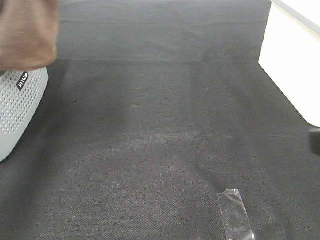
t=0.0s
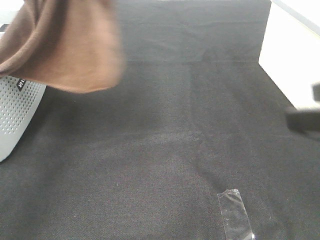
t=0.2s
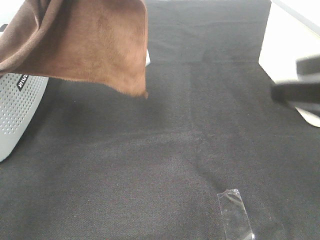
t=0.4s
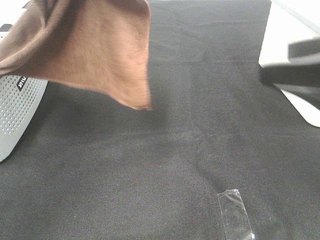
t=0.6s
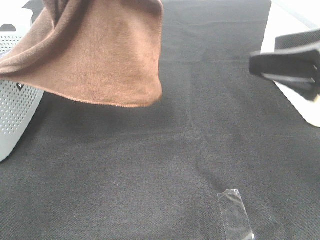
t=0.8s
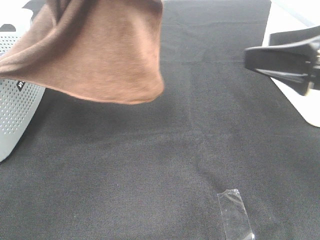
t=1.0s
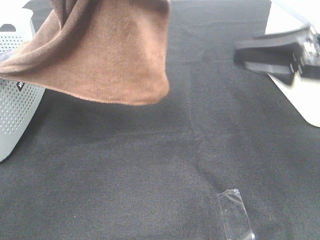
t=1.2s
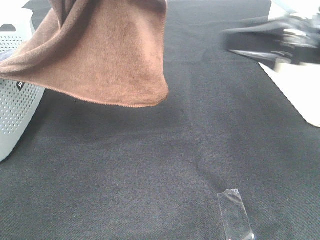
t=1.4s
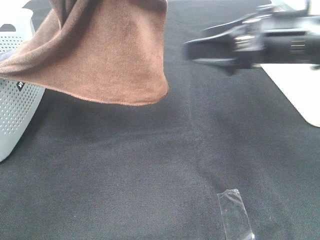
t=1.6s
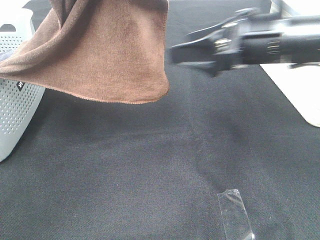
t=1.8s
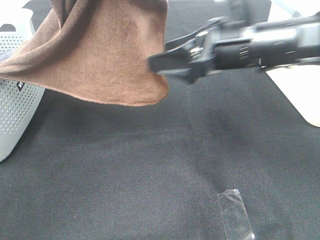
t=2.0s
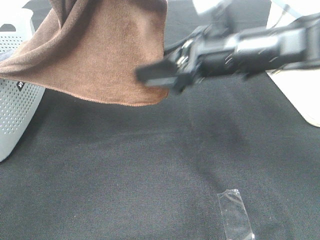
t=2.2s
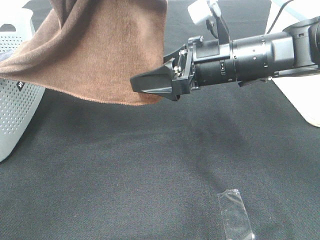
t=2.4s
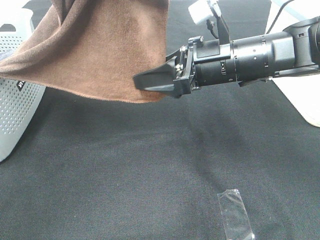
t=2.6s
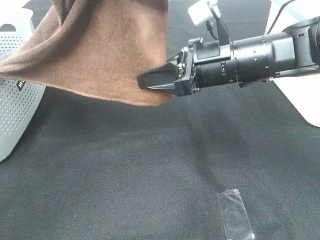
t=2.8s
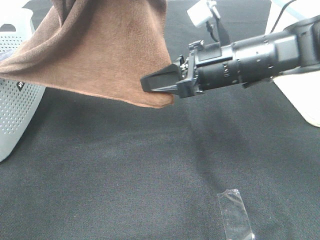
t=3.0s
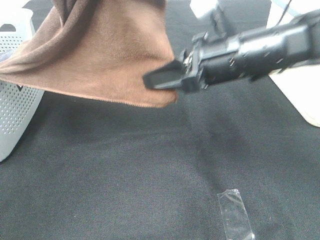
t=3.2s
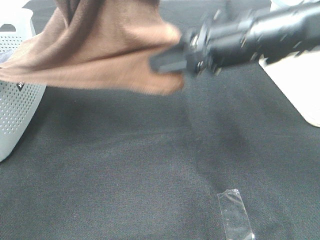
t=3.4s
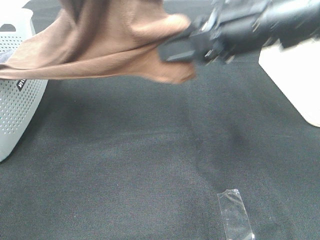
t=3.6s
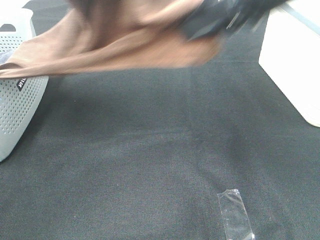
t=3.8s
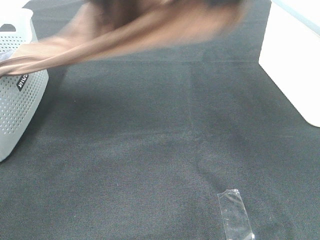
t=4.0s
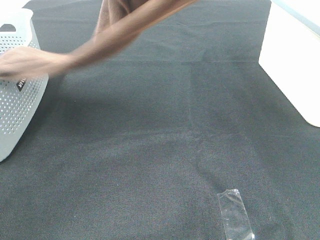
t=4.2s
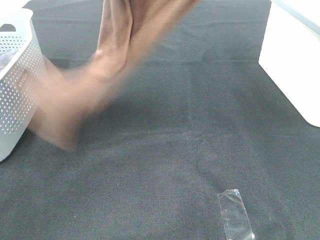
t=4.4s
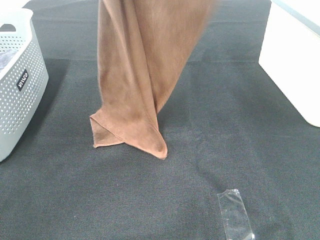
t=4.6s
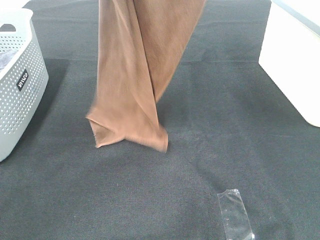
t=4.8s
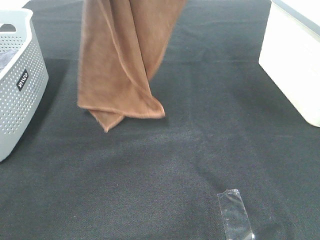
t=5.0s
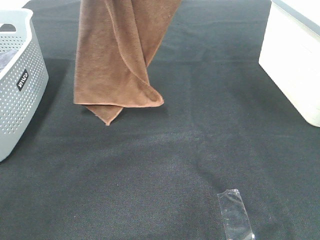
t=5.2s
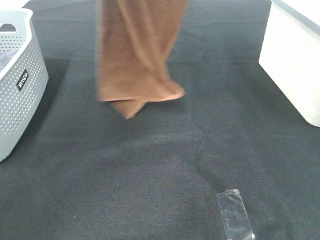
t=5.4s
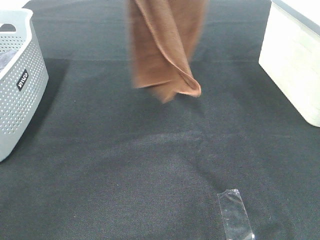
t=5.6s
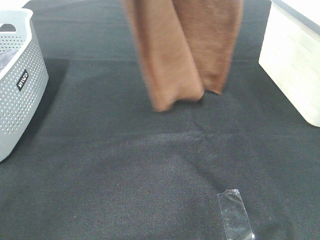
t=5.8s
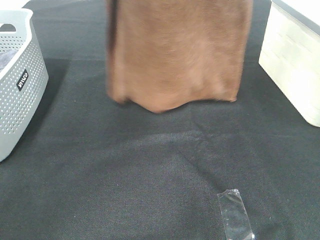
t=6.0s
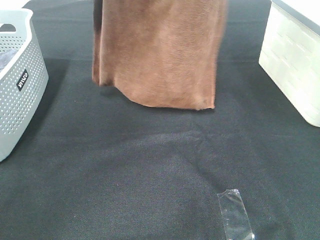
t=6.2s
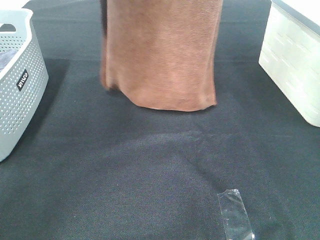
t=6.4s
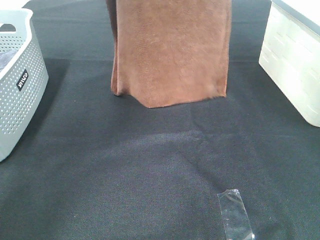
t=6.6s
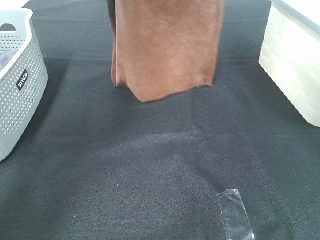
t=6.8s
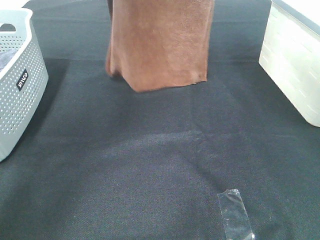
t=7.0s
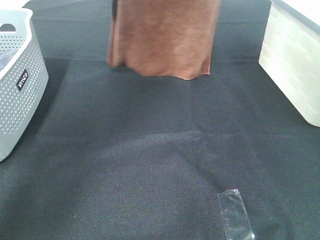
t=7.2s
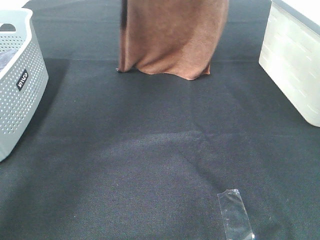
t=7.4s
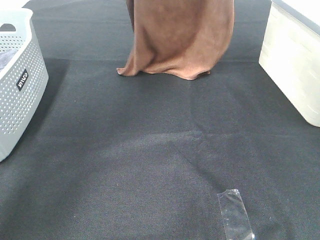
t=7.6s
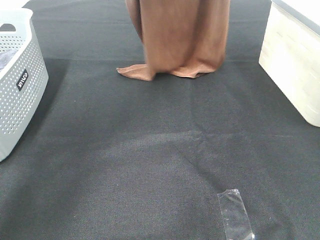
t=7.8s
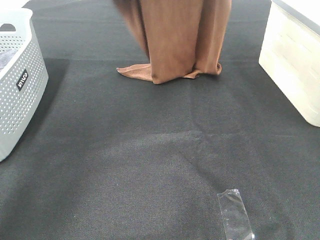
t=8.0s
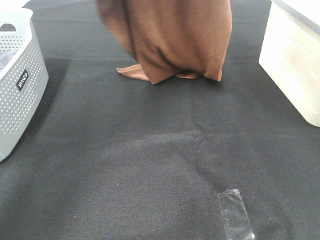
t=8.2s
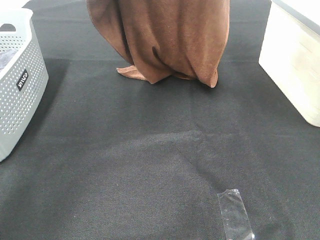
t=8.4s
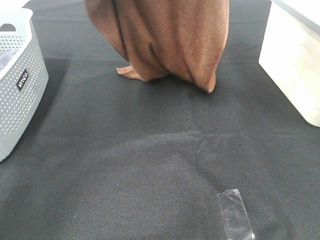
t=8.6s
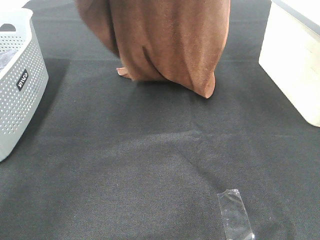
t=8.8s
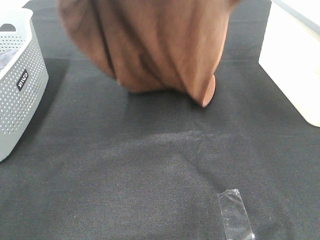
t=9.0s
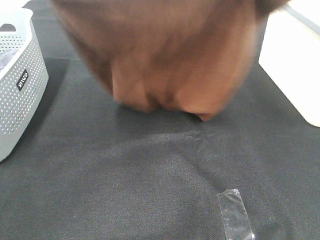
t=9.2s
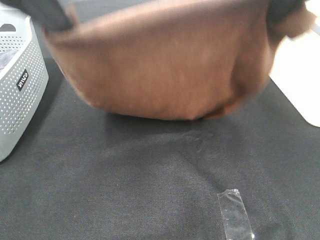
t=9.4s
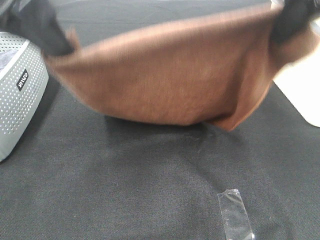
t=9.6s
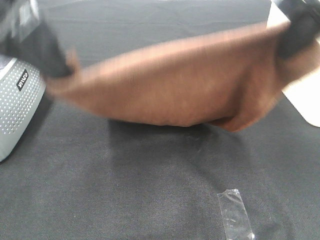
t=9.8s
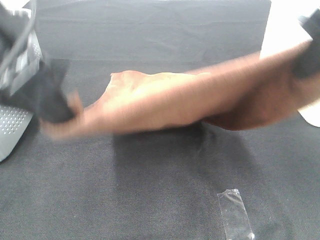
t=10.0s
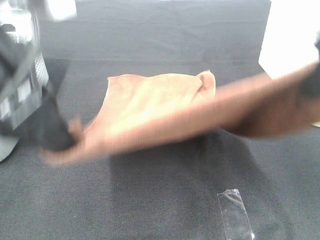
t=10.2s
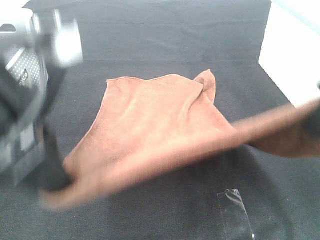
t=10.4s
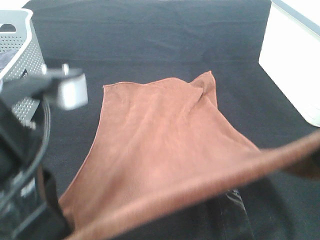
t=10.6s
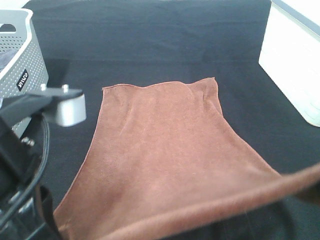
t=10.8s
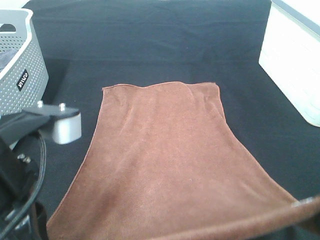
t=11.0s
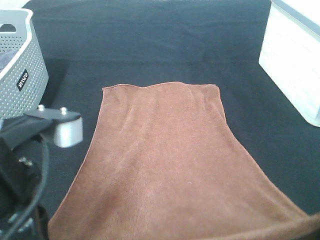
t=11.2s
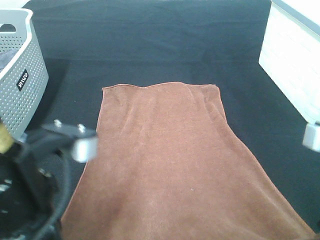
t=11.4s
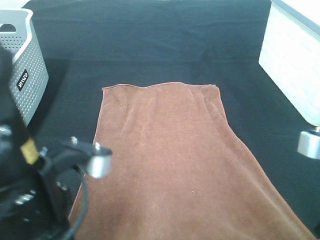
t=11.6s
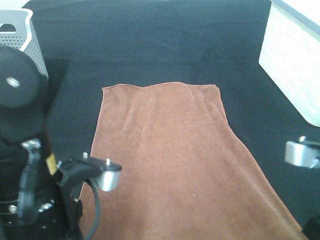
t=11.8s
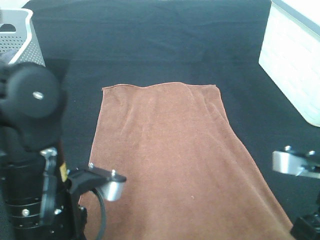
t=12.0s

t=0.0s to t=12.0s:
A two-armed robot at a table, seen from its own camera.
Task of the whole recording: Remove the towel and place it.
Step, t=0.0s to t=2.4s: Right hand: grab a corner of the brown towel and straighten it.
Step, t=2.6s to t=9.6s: Left hand: spread the brown towel flat on the table.
Step, t=2.6s to t=9.6s: Right hand: spread the brown towel flat on the table.
t=0.0s to t=1.6s: The left gripper is displaced to the right by approximately 10 cm; the right gripper travels forward by some 20 cm.
t=1.6s to t=3.0s: The right gripper goes about 5 cm to the left, and closes up.
t=3.0s to t=4.4s: The right gripper goes about 25 cm upward.
t=4.4s to t=6.0s: The left gripper goes some 5 cm forward. Meanwhile the right gripper goes some 10 cm upward and forward.
t=6.0s to t=7.6s: The grippers both shift forward and downward by about 10 cm.
t=7.6s to t=9.0s: The right gripper goes some 15 cm backward and downward. Meanwhile the left gripper is displaced backward by some 15 cm.
t=9.0s to t=10.4s: The grippers both shift backward and downward by about 20 cm.
t=10.4s to t=12.0s: Both grippers move downward, approximately 15 cm.

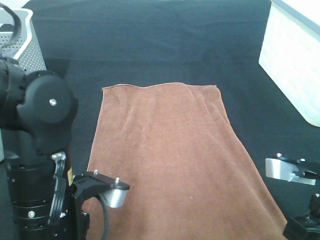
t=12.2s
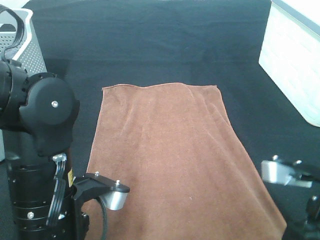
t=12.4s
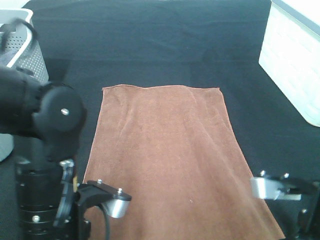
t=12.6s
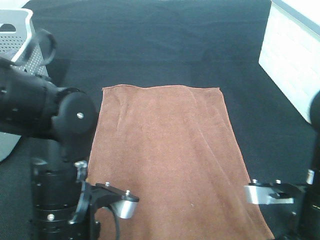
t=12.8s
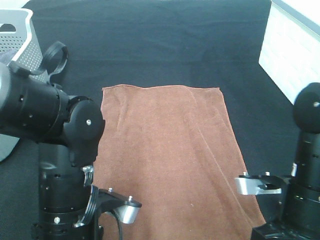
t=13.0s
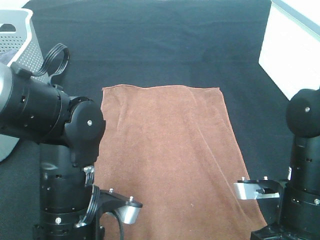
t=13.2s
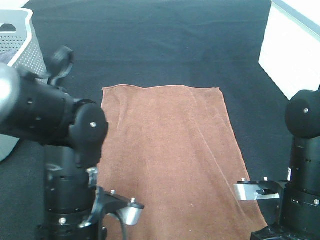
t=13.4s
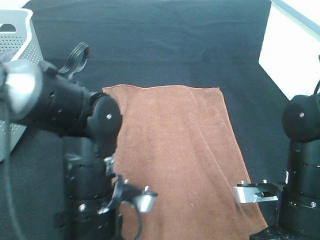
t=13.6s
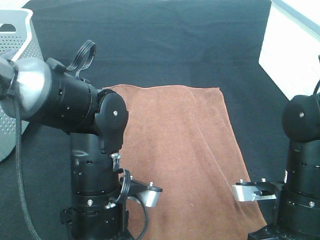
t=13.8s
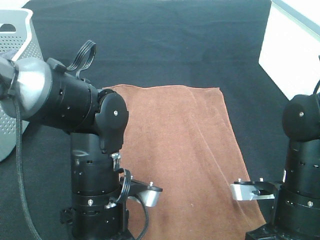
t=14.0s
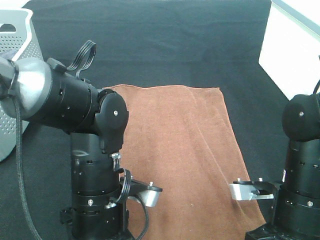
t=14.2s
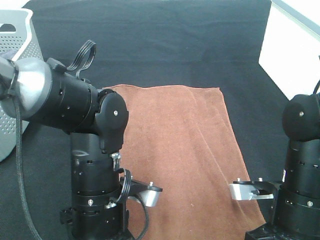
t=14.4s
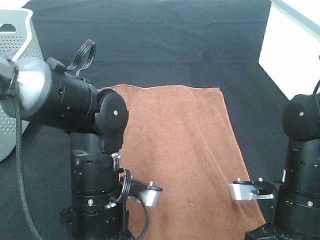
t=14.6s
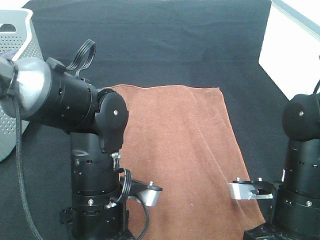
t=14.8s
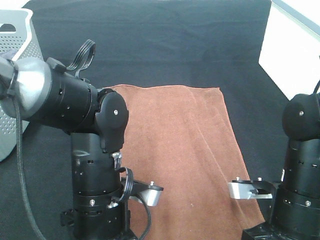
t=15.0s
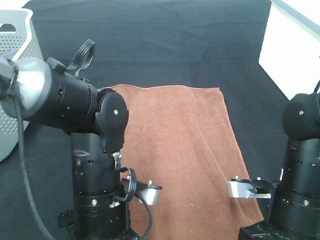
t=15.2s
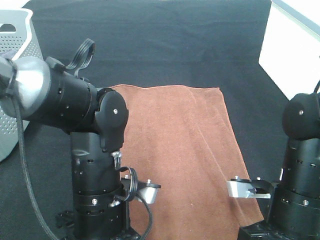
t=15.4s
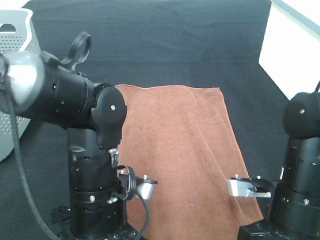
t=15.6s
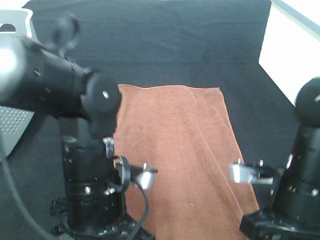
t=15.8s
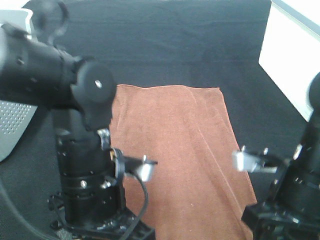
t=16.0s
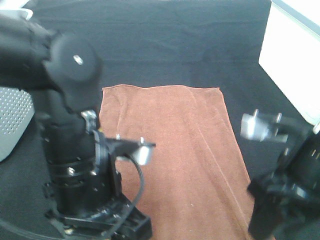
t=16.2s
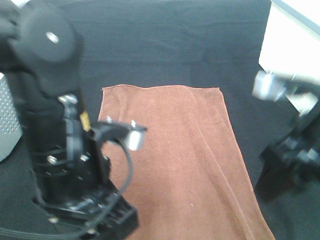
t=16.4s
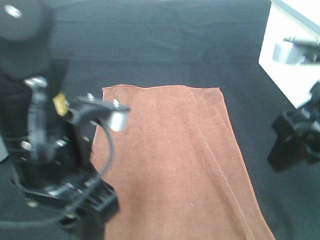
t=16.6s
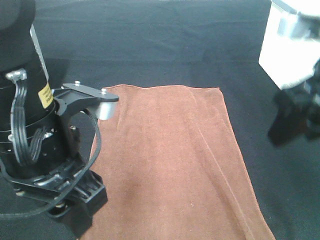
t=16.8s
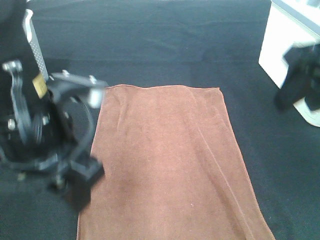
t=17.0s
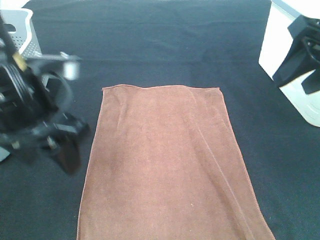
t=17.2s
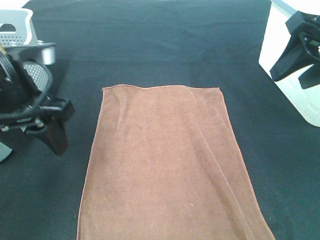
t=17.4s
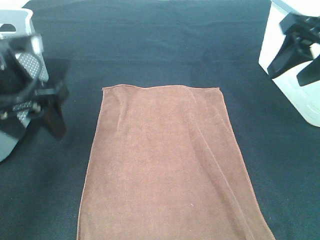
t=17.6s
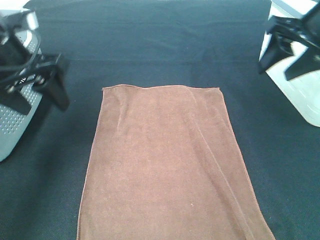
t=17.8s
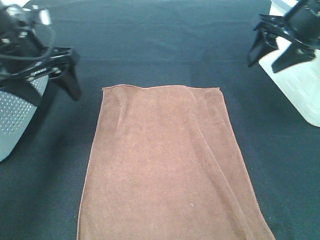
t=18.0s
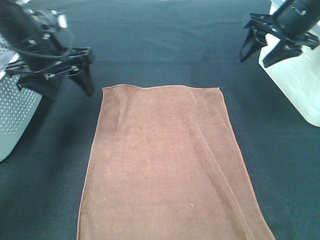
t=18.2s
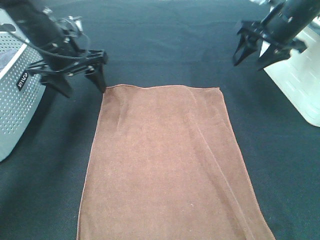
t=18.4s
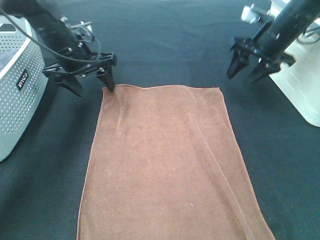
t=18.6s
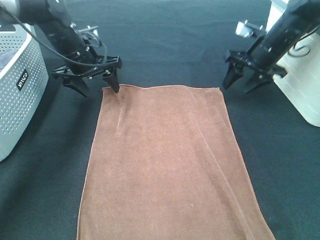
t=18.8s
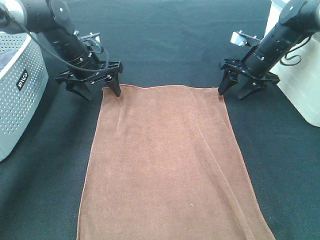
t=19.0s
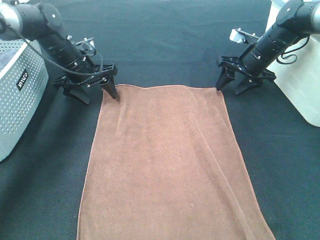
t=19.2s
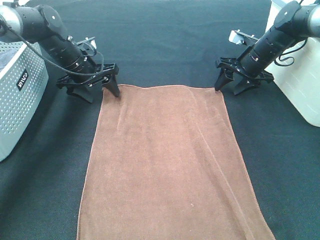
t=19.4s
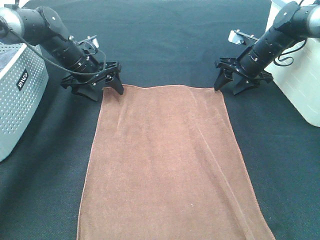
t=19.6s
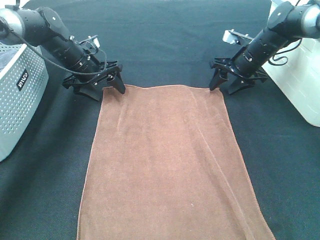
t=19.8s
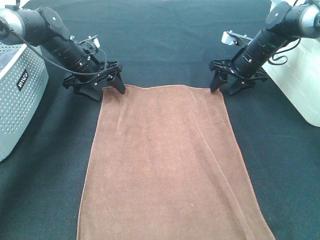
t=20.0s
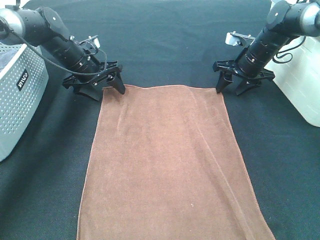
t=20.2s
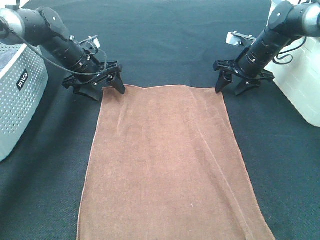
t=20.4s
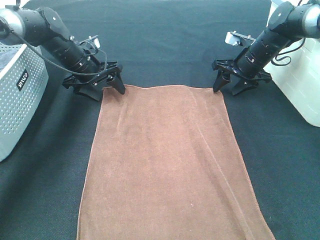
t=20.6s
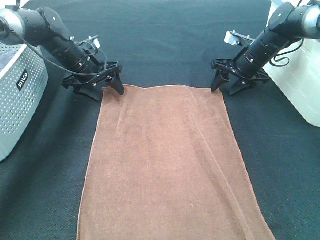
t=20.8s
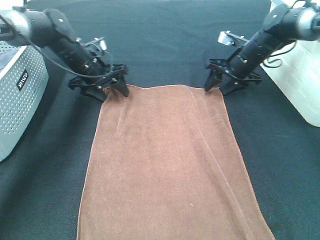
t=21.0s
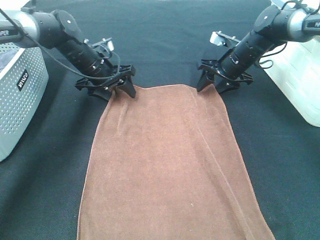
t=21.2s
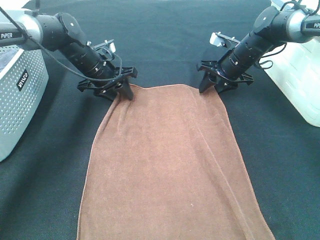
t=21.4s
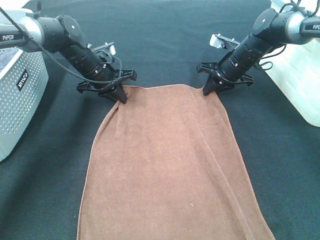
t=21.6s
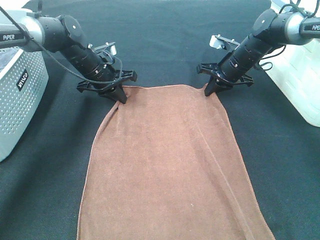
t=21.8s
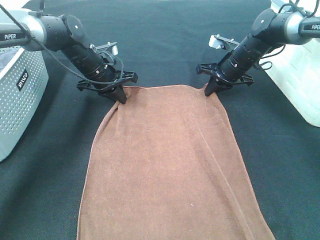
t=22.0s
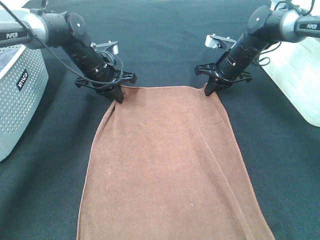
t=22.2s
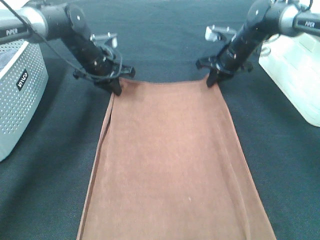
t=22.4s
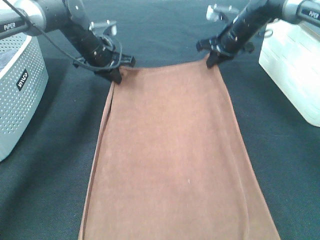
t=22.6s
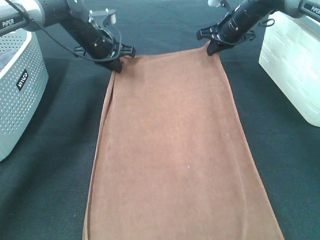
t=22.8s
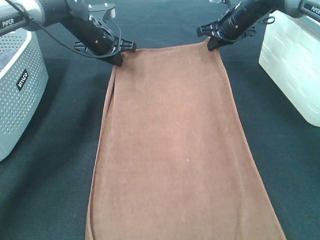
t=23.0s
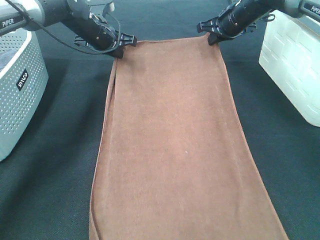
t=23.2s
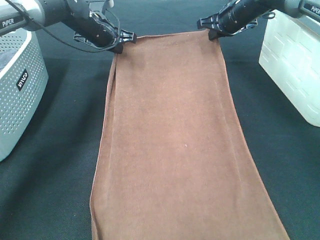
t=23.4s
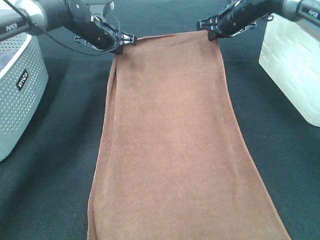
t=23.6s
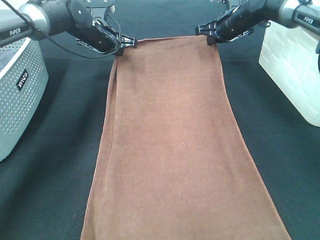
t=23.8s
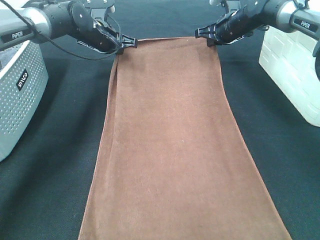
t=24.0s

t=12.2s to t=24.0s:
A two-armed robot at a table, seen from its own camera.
Task of the whole recording: Remove the towel and place it.
Step, t=12.2s to t=19.0s: Left hand:adjust the brown towel.
Step, t=12.2s to t=19.0s: Right hand:adjust the brown towel.
t=12.2s to t=13.6s: The right gripper goes approximately 5 cm downward. Meanwhile the left gripper ends up roughly 5 cm from where it was.
t=13.6s to t=15.2s: The right gripper opens its fingers. The left gripper opens up.
t=15.2s to t=16.6s: The two grippers go some 15 cm upward.
t=16.6s to t=18.2s: The right gripper heads forward, covering roughly 25 cm. Meanwhile the left gripper goes about 25 cm forward and to the left.
t=18.2s to t=19.6s: The left gripper moves forward and downward, some 15 cm, while the right gripper is displaced downward and forward by approximately 15 cm.
t=19.6s to t=21.0s: There are only small adjustments of the grippers.
t=21.0s to t=22.6s: The left gripper closes its fingers. The right gripper is displaced upward by some 5 cm, and closes.
